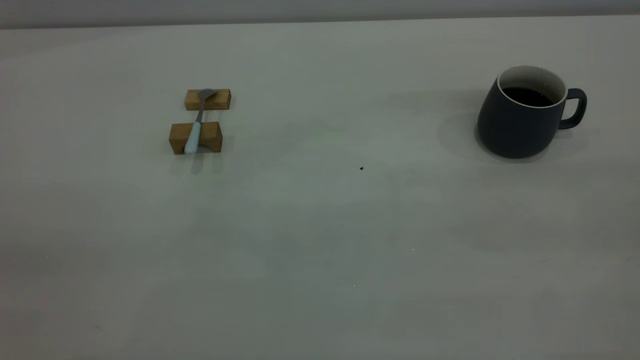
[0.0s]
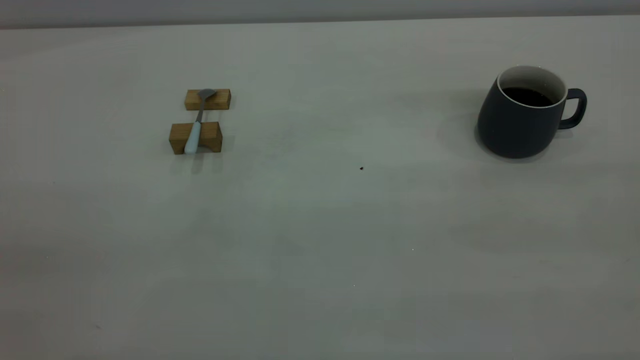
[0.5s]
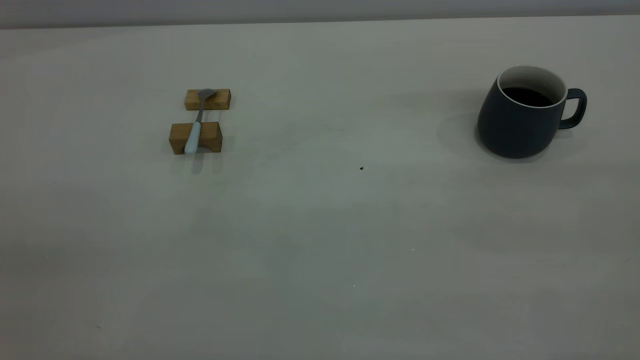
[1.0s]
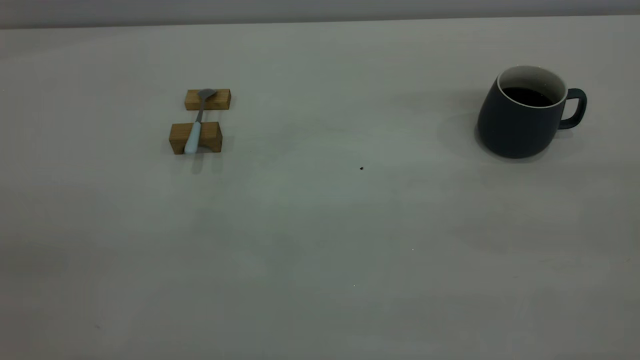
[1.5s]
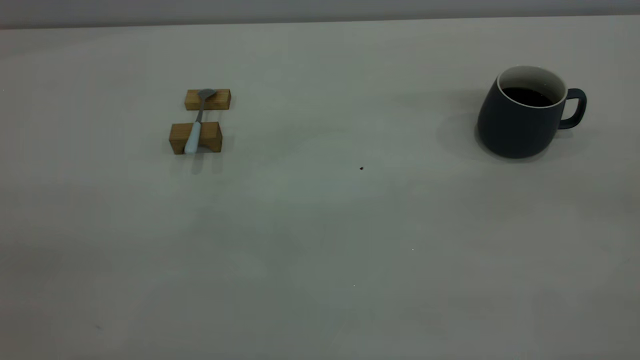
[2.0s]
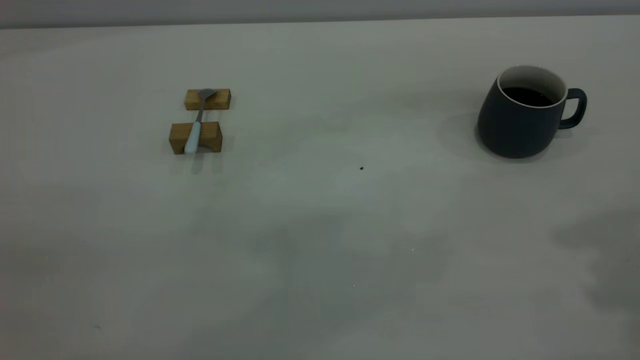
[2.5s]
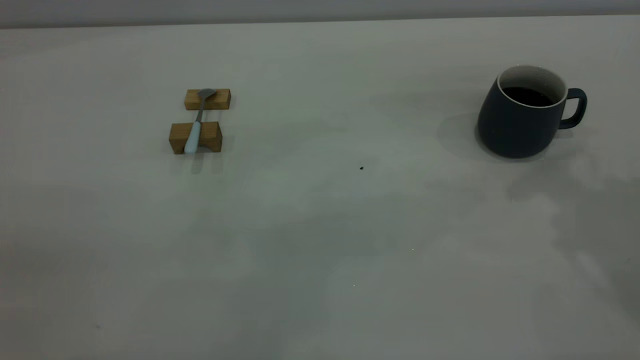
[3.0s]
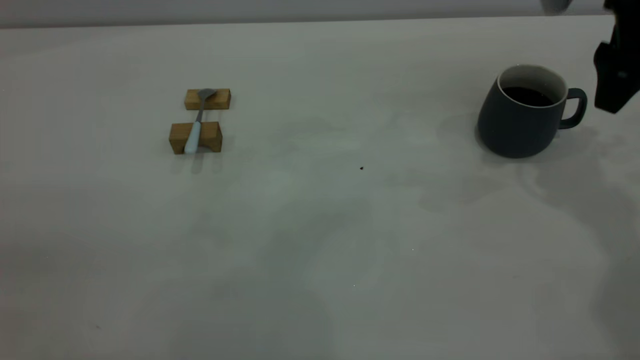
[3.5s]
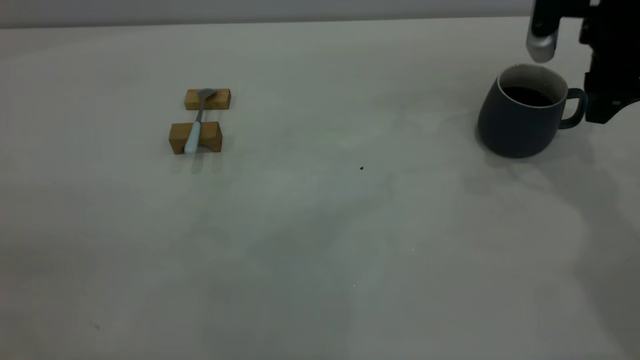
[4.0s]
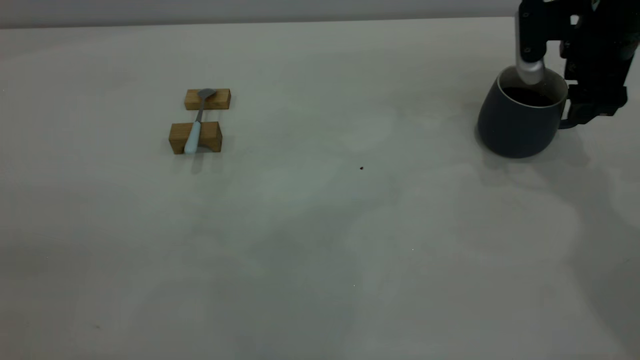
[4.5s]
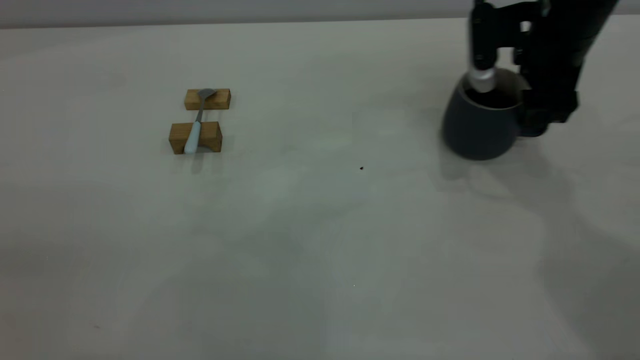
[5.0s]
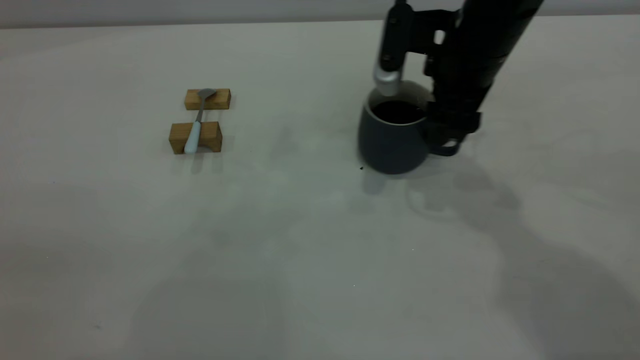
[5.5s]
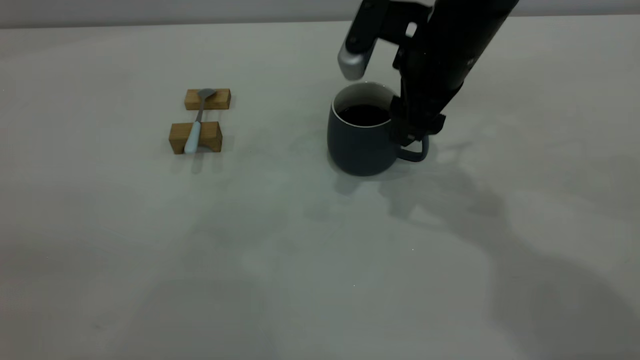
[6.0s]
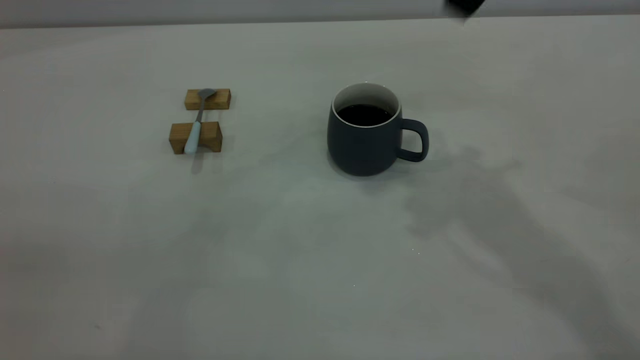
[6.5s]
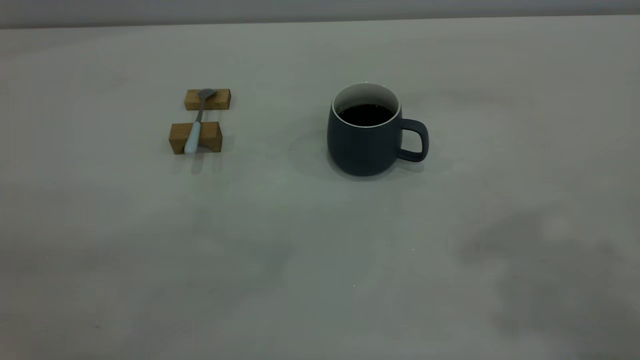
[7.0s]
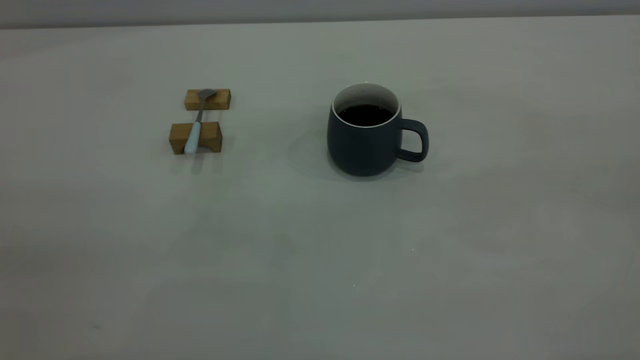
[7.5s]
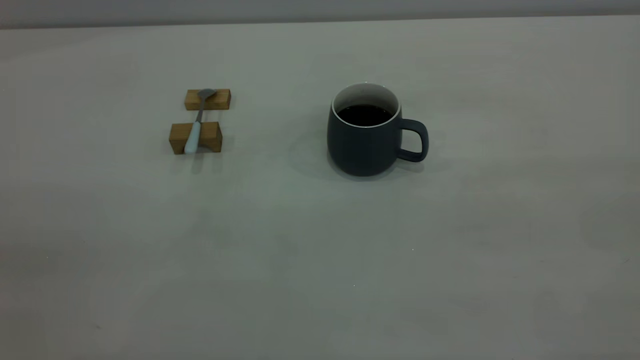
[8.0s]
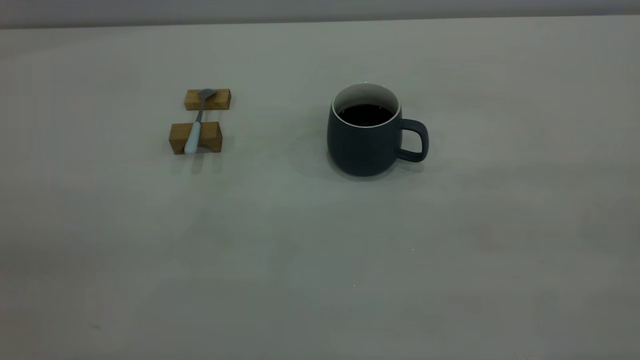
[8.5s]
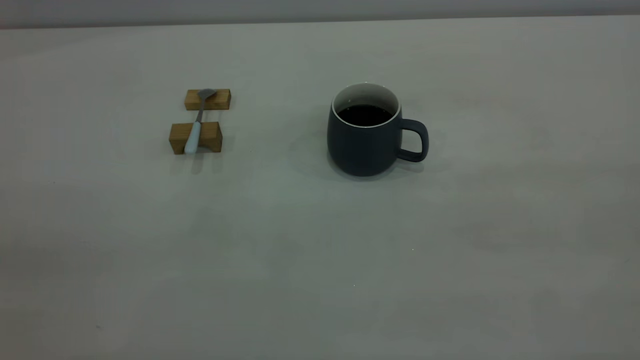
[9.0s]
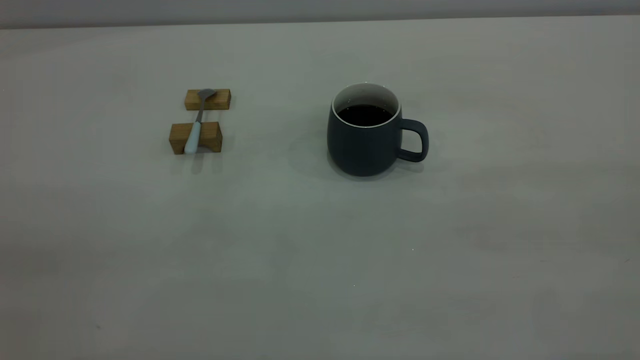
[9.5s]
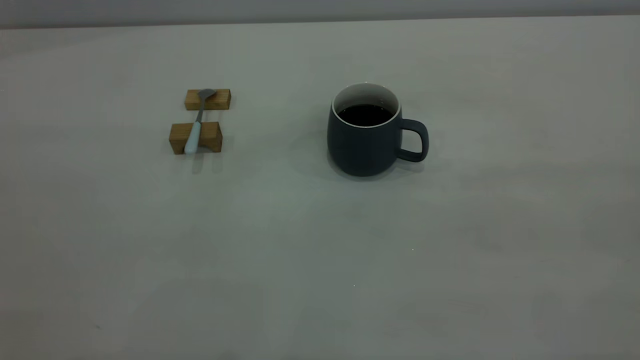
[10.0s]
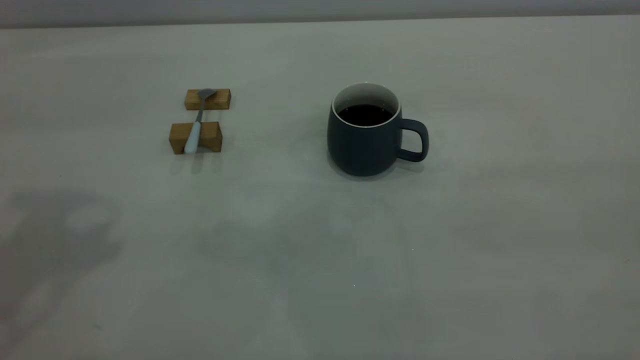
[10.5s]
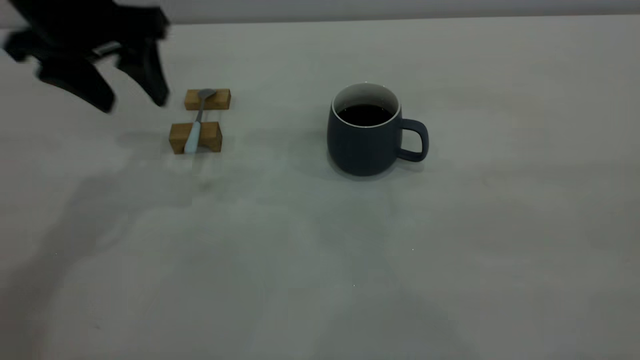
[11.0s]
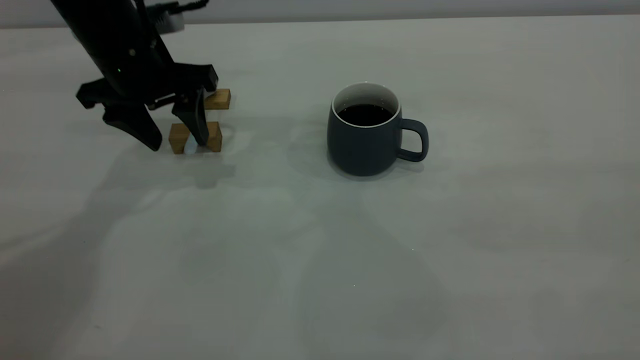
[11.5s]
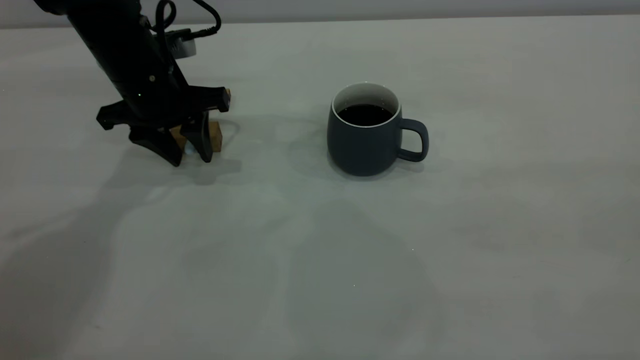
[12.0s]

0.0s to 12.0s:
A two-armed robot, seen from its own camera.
Step, 0.0s to 6.0s: Move the cup with coffee to the center of view.
2.0s to 4.0s: The right gripper travels forward and downward by about 40 cm, and opens.
4.0s to 6.0s: The right gripper is displaced to the left by approximately 15 cm.
6.0s to 8.0s: The right gripper goes some 50 cm backward, upward and to the right.
10.0s to 12.0s: The left gripper travels forward and downward by roughly 40 cm.

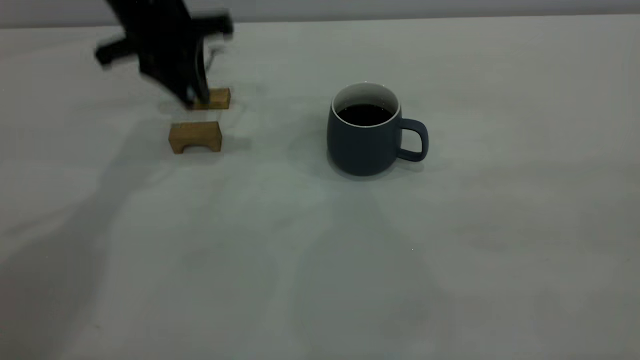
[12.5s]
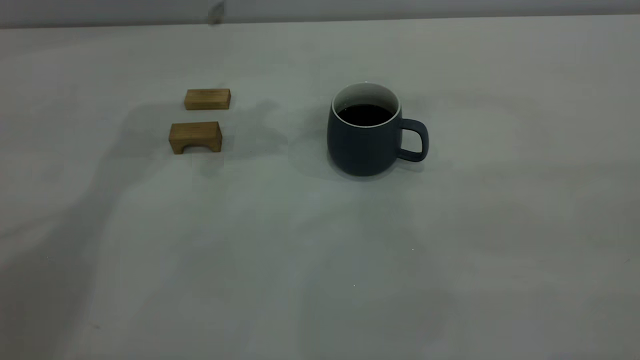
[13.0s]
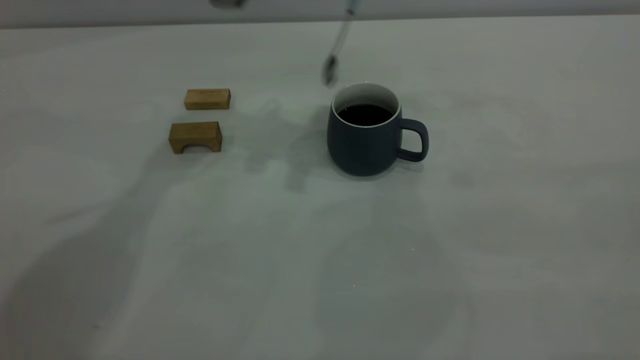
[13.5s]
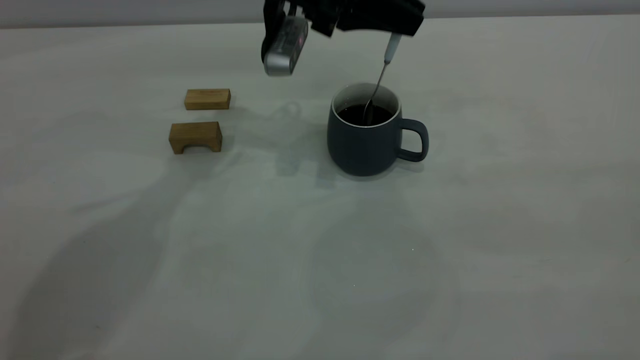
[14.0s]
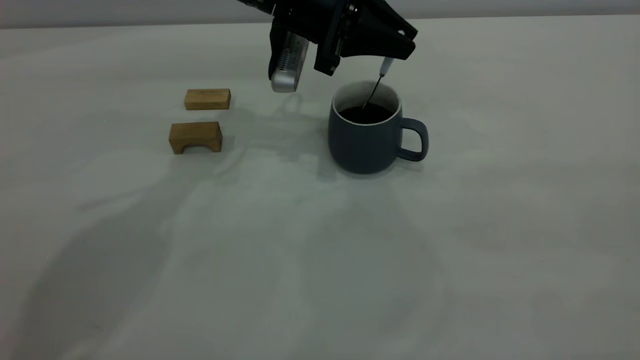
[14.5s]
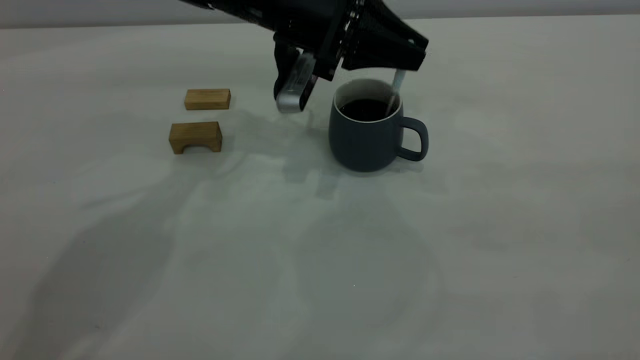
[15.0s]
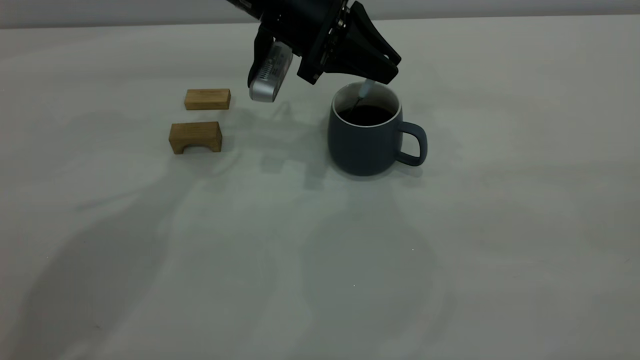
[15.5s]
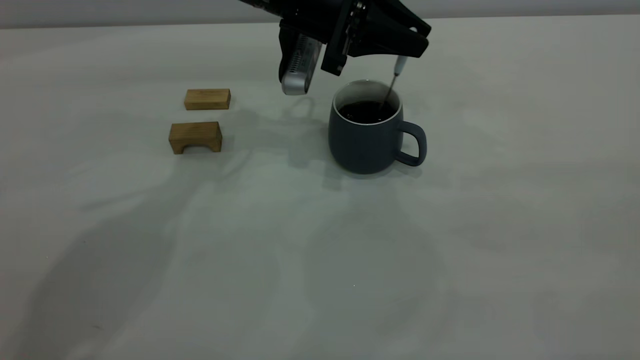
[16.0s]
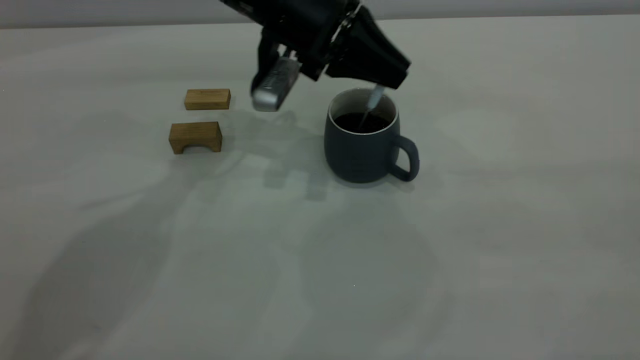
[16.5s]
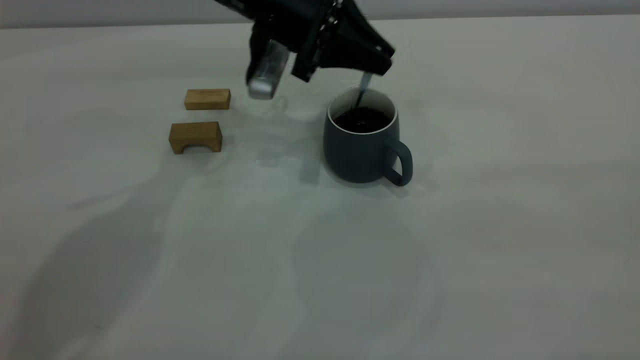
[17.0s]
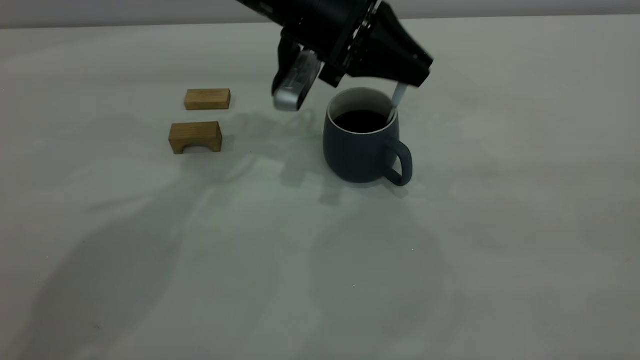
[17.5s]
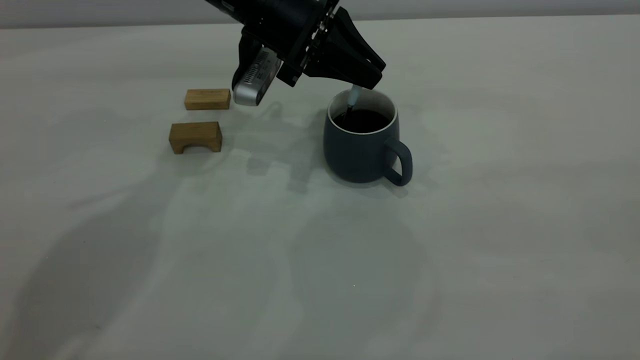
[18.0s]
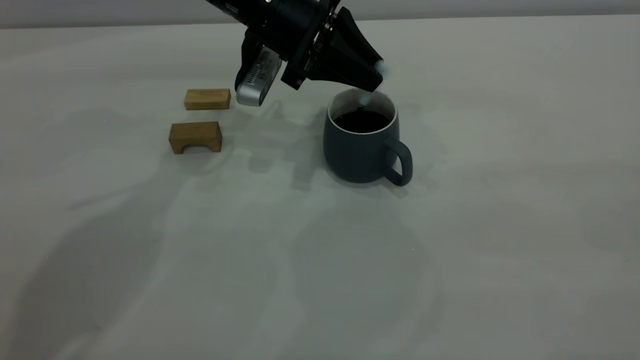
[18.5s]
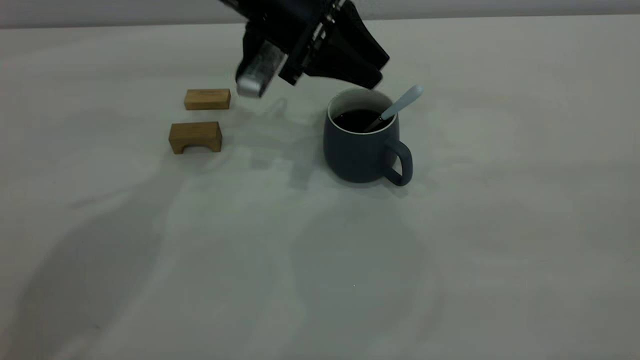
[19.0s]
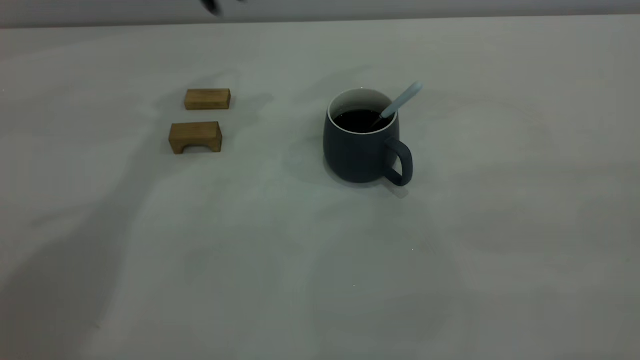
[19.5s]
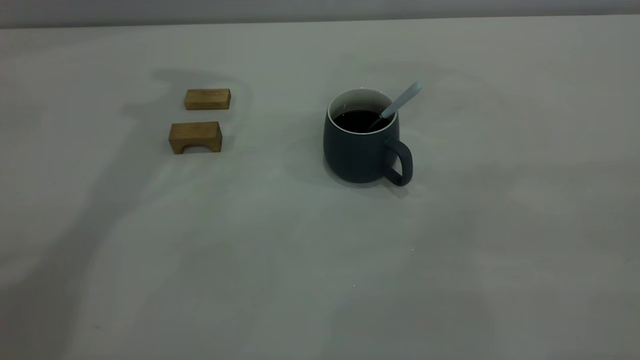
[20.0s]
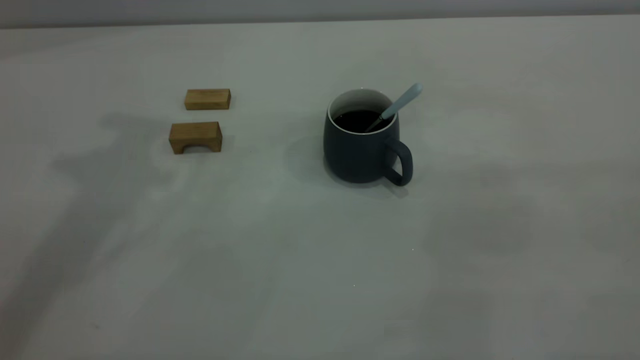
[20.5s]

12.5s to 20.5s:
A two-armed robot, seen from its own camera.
Step, 13.0s to 19.0s: Stir the coffee in the cup.
12.5s to 14.5s: The left gripper heads to the right, covering about 15 cm, and travels upward and back again, some 10 cm each way.
14.5s to 18.5s: The grippers stay close to where they were, moving slightly.
18.5s to 20.5s: The left gripper moves upward and to the left, some 30 cm.
